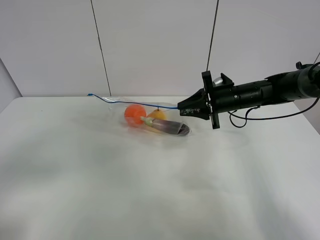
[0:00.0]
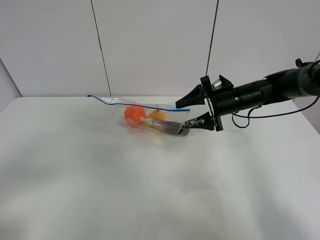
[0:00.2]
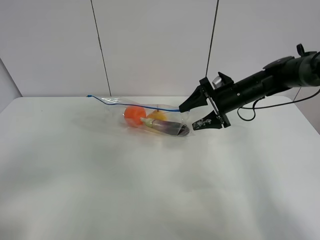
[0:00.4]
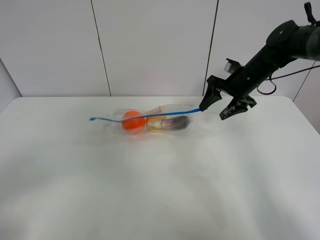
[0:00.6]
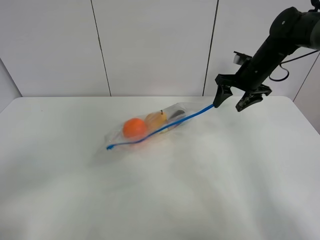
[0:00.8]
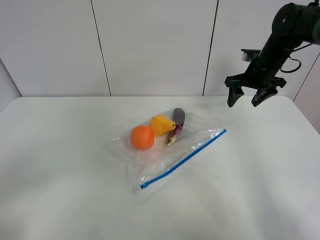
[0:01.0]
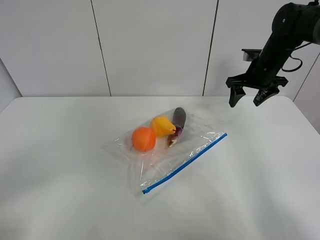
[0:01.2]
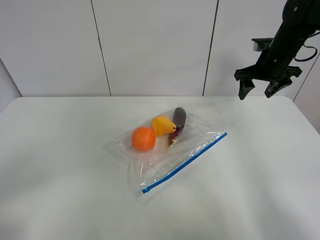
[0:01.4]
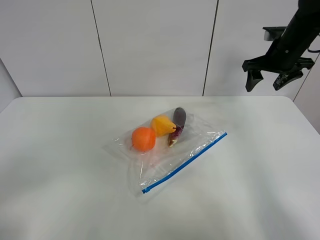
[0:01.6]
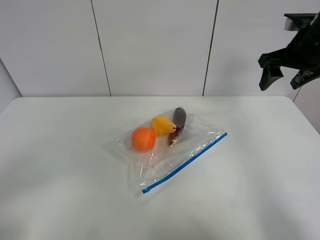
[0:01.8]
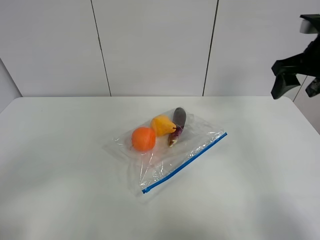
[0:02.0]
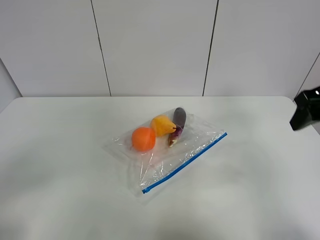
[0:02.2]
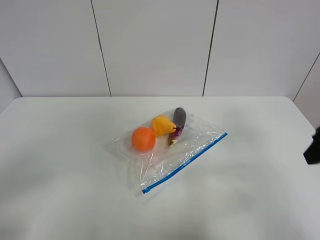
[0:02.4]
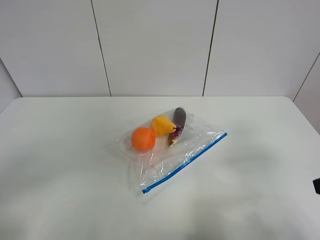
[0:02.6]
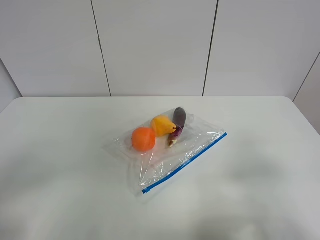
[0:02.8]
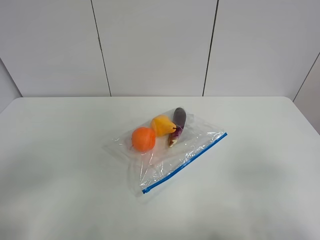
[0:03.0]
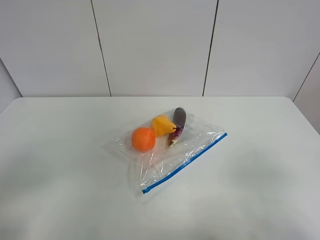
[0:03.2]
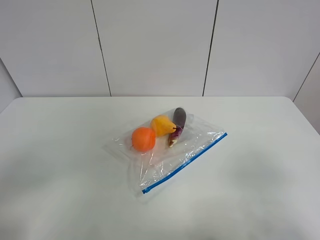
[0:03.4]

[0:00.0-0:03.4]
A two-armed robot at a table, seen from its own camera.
0:00.0 to 0:01.6: The right gripper heads upward and to the right, covering approximately 15 cm, and opens up. The left gripper travels backward by some 5 cm.
0:01.6 to 0:03.4: The right gripper shifts approximately 40 cm backward.

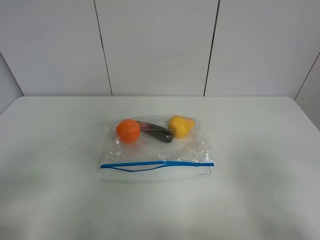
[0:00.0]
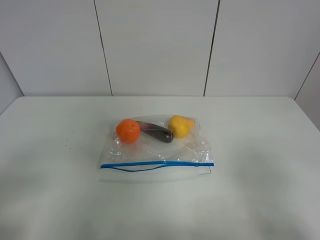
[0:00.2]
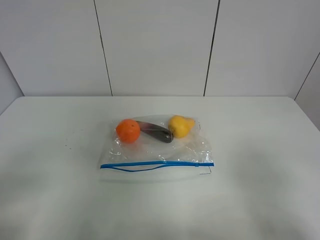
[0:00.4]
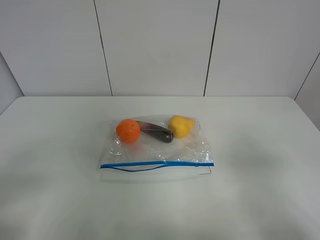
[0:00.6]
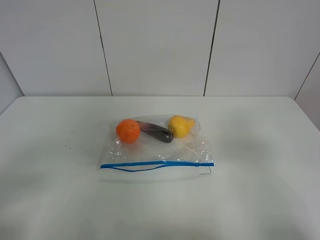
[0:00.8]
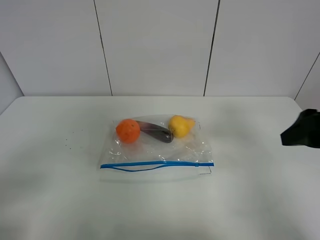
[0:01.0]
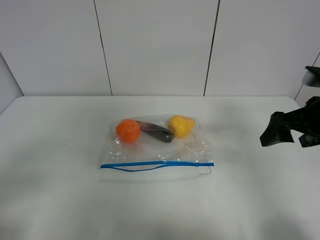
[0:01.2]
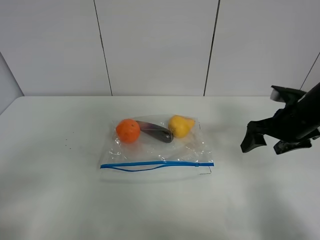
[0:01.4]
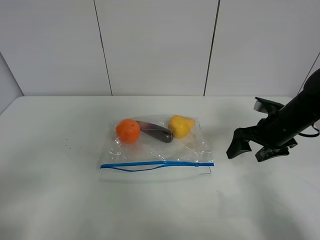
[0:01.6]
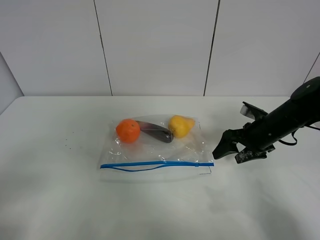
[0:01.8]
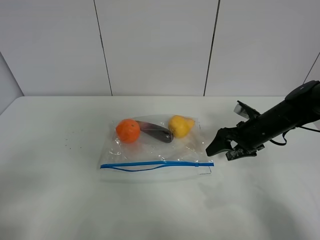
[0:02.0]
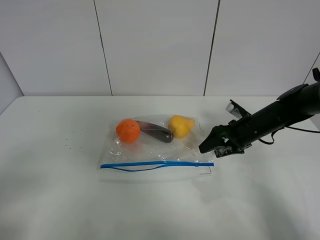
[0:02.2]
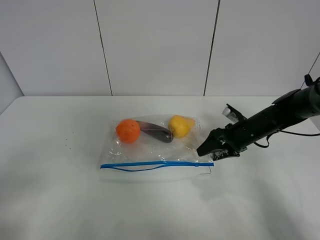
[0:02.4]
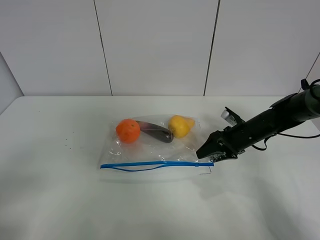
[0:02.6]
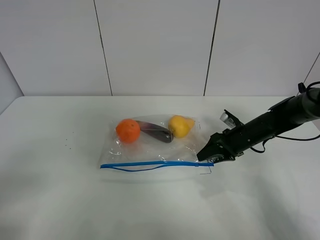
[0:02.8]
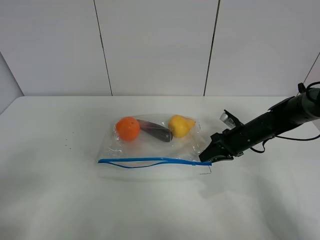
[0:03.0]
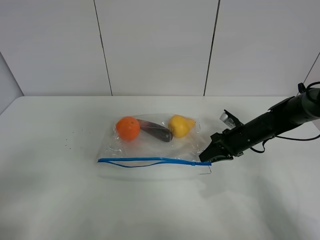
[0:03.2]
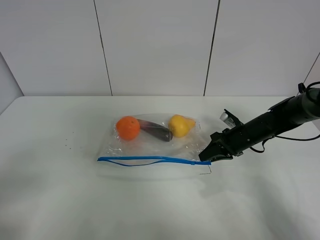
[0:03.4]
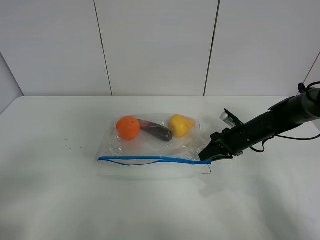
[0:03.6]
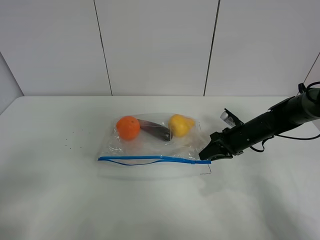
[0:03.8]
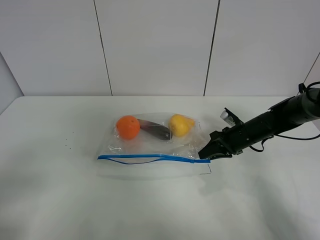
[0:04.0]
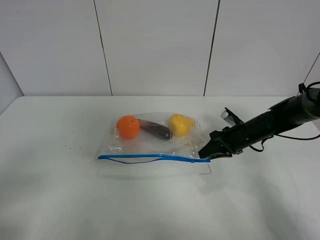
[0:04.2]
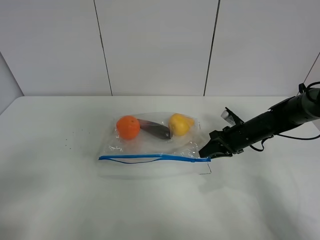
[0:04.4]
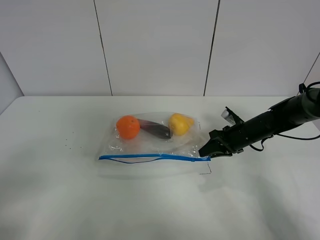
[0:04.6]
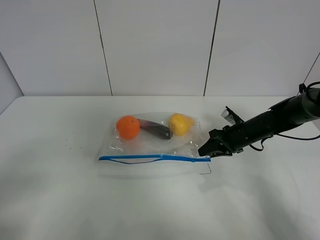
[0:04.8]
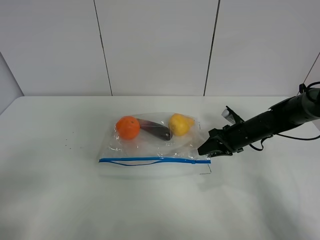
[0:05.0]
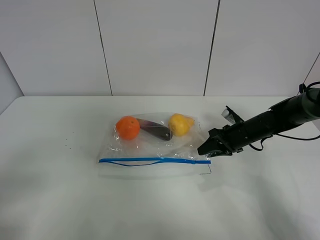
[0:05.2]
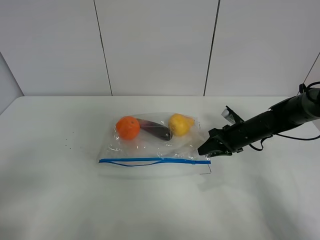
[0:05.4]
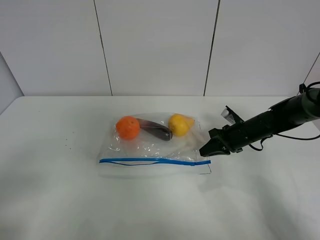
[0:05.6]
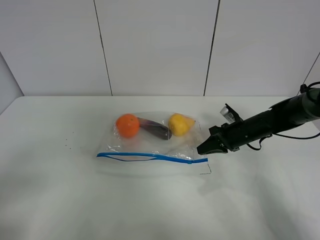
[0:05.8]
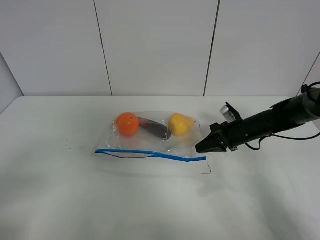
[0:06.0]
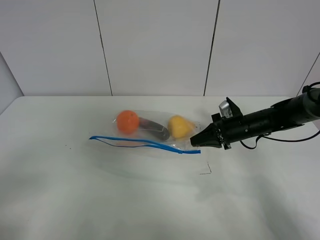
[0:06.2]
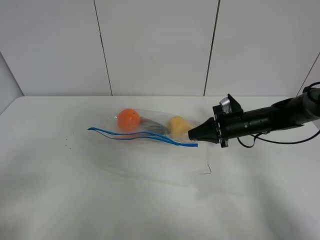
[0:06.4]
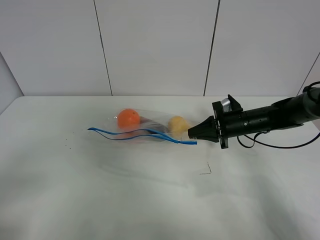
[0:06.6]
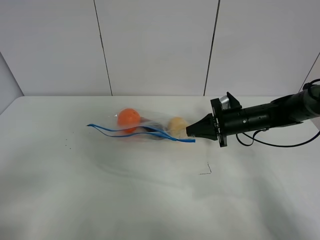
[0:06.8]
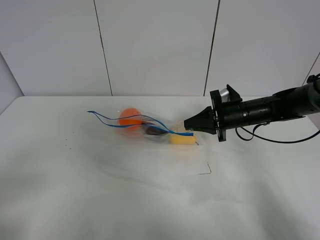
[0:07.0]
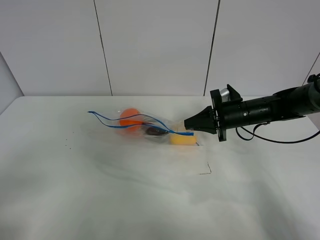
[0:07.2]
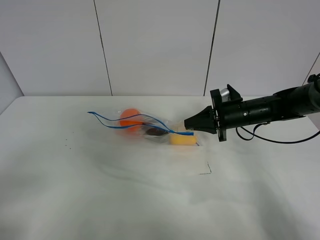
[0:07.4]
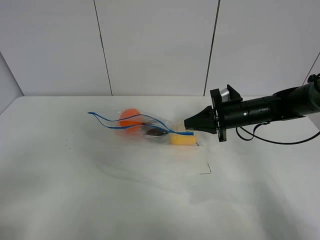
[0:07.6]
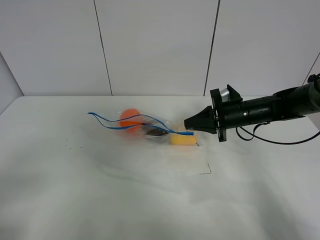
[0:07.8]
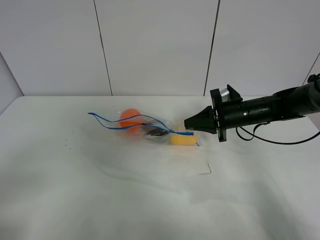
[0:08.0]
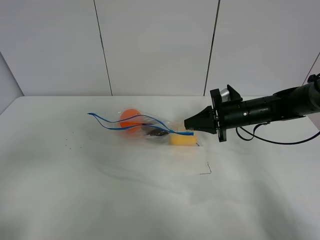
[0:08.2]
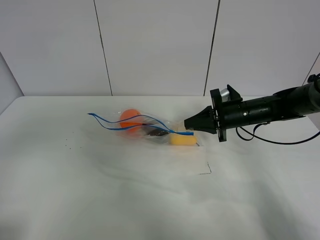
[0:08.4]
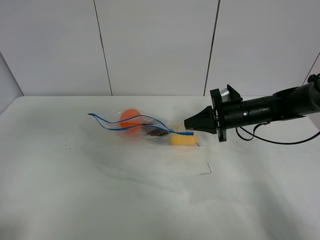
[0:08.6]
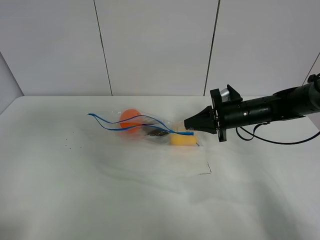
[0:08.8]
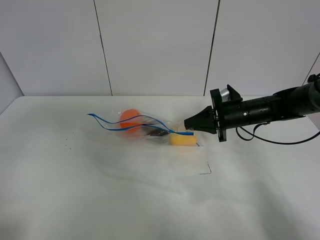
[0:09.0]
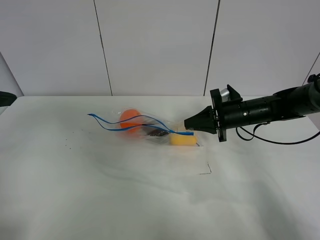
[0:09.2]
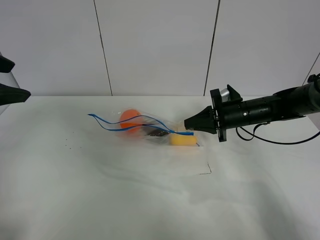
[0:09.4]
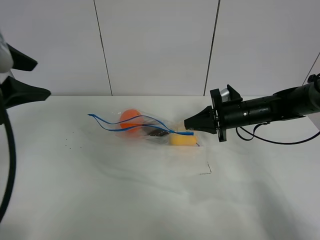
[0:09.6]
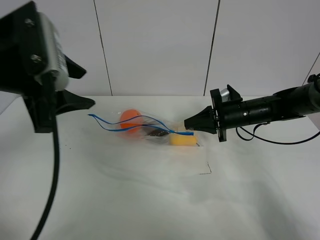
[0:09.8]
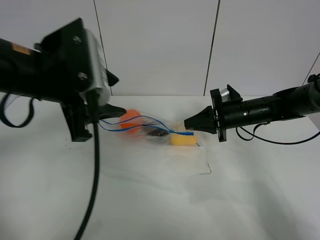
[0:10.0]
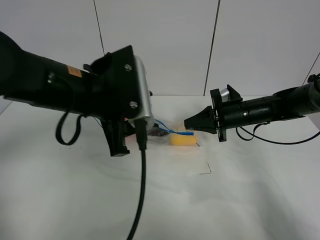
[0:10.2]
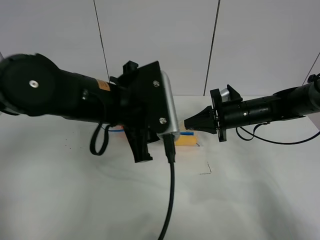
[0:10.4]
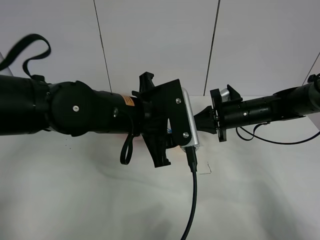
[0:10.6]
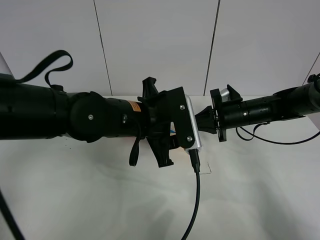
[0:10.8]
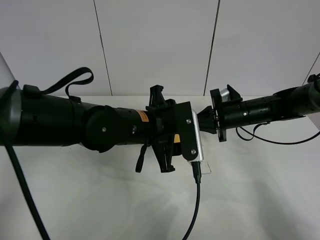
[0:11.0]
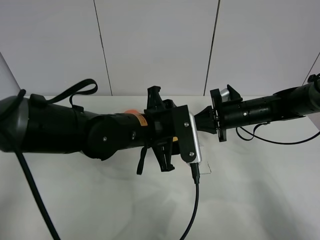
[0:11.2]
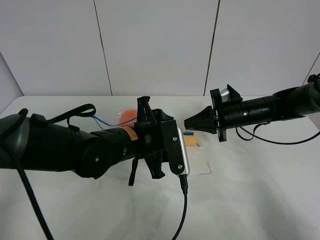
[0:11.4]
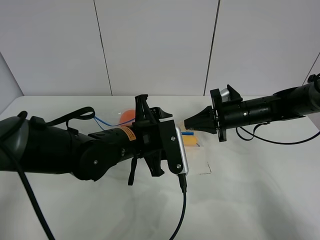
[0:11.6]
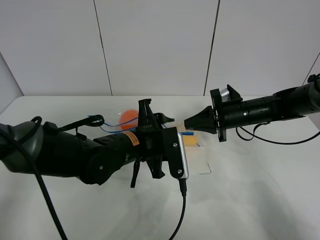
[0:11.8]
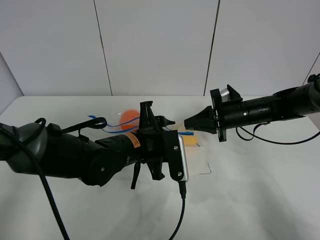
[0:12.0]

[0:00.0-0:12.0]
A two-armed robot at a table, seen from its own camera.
Step, 0:00.0 to 0:05.6: Grasp the fruit bag with right gripper.
Step, 0:05.8 to 0:07.2: Lift the fruit bag with your right gripper.
0:00.0 to 0:01.6: The right gripper heads forward, covering approximately 30 cm.
0:01.6 to 0:03.0: The right gripper shifts some 10 cm downward, and closes.
0:03.0 to 0:04.4: The two grippers keep their place.
0:04.4 to 0:06.0: There are only small adjustments of the grippers.
0:06.0 to 0:07.6: The right gripper moves upward, approximately 5 cm.
0:07.6 to 0:09.0: The left gripper heads forward and upward, covering about 20 cm.
0:09.0 to 0:10.4: The left gripper moves to the right and downward, approximately 25 cm.
0:10.4 to 0:12.0: The left gripper goes some 10 cm downward.

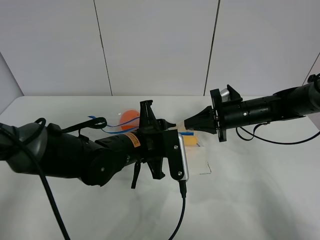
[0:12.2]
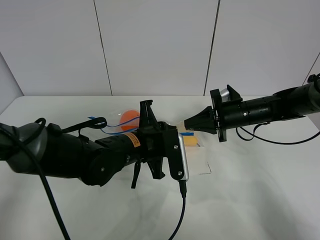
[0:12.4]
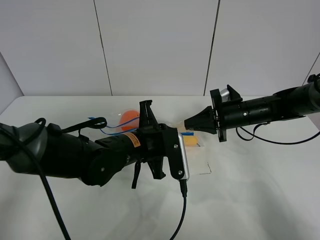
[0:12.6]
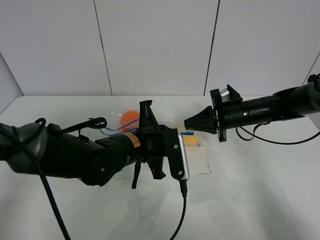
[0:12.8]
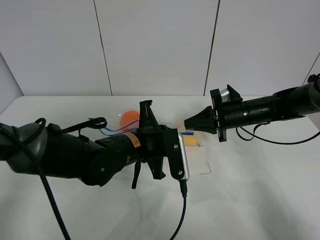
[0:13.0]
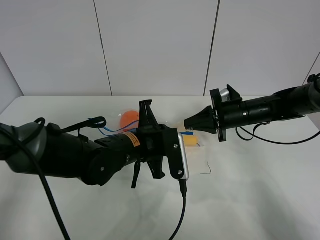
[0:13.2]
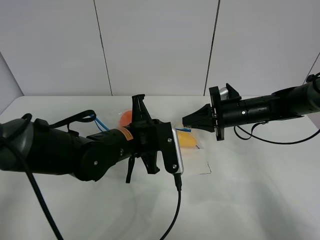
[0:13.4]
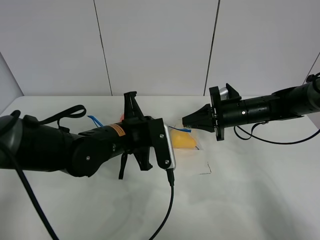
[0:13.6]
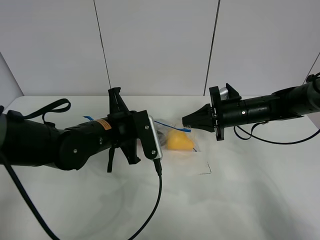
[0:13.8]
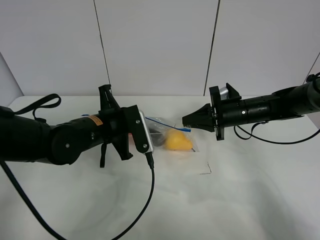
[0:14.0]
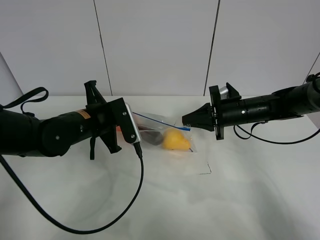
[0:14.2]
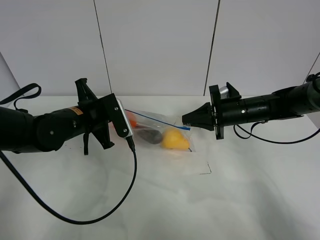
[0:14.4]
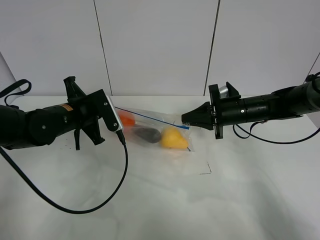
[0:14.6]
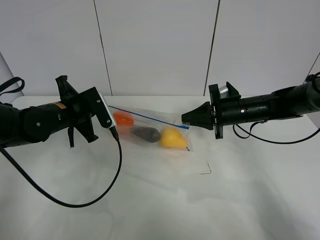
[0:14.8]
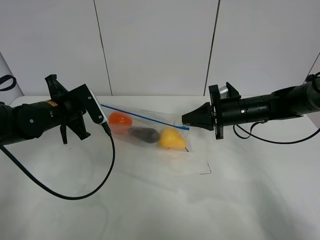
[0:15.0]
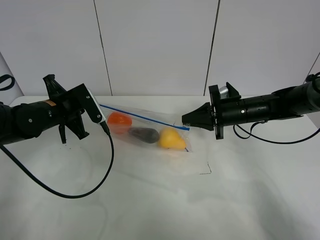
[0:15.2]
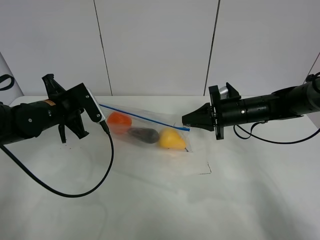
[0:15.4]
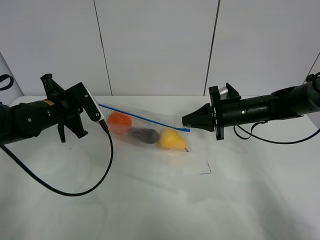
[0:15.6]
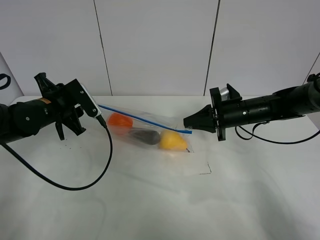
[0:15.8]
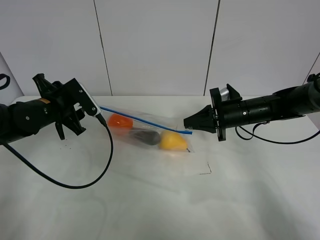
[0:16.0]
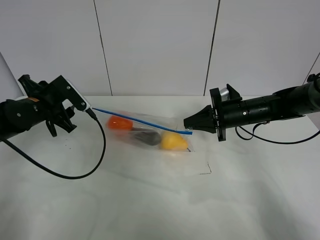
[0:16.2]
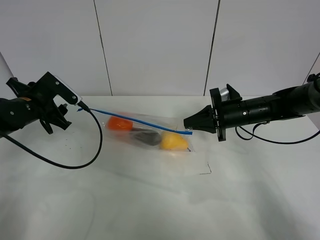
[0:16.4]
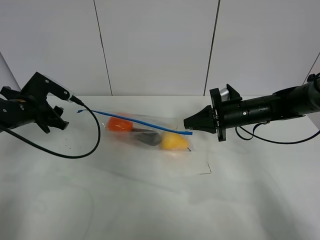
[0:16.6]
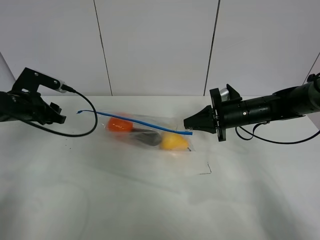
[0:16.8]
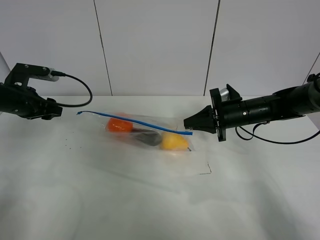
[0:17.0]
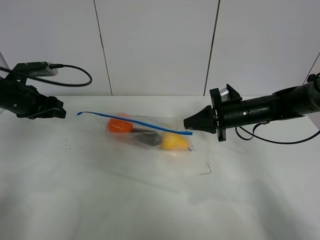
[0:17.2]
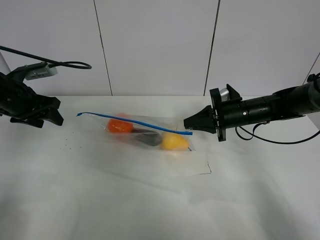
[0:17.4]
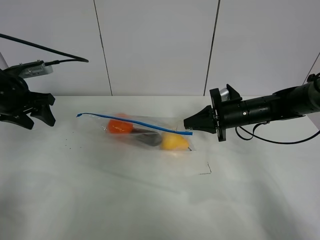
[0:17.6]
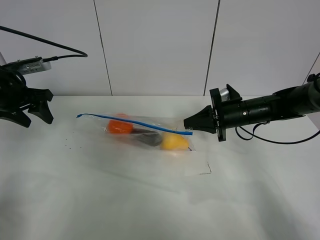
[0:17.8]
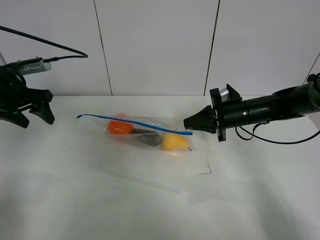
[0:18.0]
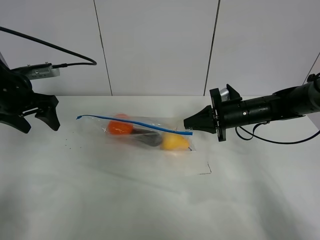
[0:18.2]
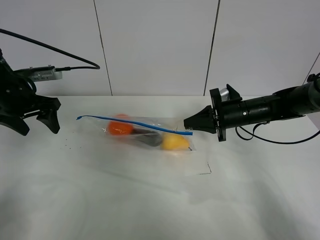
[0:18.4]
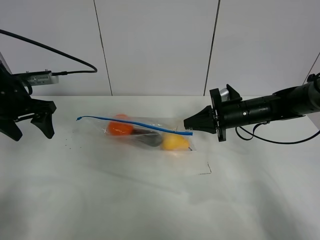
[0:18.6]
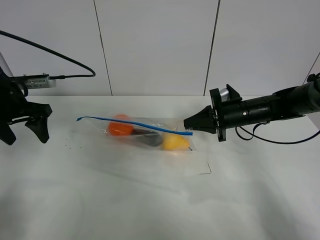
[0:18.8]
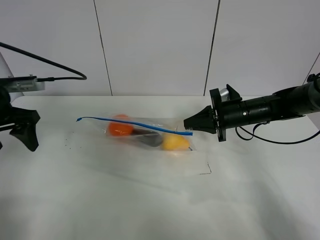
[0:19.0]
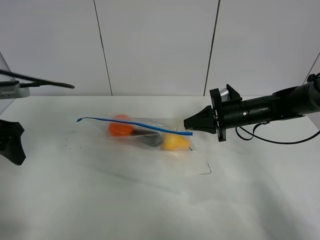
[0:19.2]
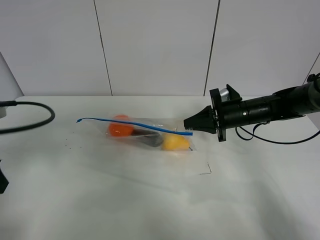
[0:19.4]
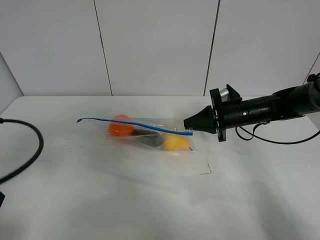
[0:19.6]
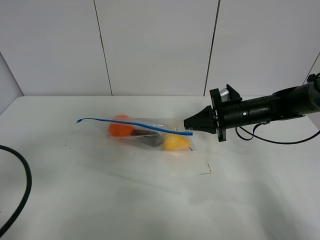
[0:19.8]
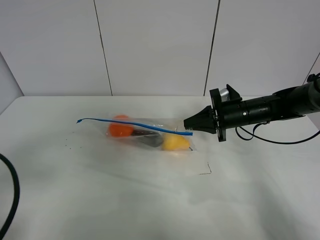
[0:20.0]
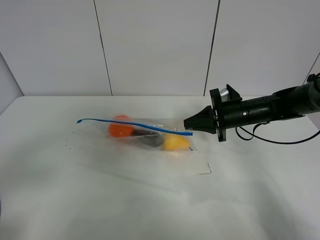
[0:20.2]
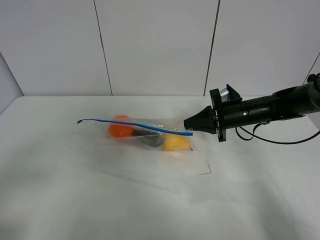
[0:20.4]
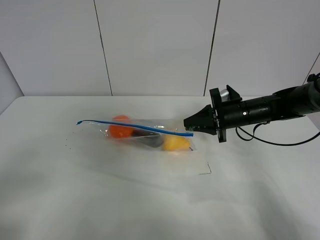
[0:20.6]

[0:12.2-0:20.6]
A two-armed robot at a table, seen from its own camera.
Step, 0:12.2 to 0:16.0: Pull the fruit bag with left gripper.
0:12.2 to 0:13.6: The left gripper closes up.
0:13.6 to 0:15.0: The left gripper is displaced to the left and forward by approximately 15 cm.
0:15.0 to 0:16.4: The left gripper travels to the left by about 5 cm, and opens up.
0:16.4 to 0:17.8: The left gripper is displaced upward by approximately 5 cm.
0:17.8 to 0:19.2: The left gripper is displaced backward by roughly 10 cm.
0:19.2 to 0:20.6: The left gripper is displaced backward by roughly 20 cm.
